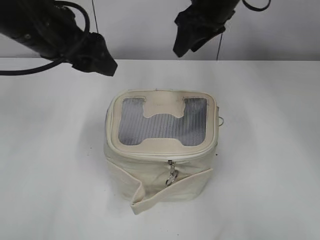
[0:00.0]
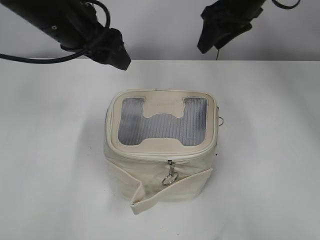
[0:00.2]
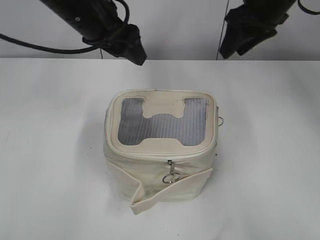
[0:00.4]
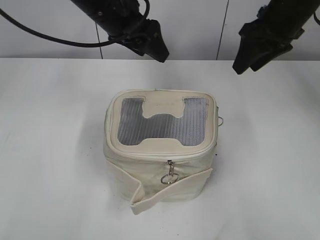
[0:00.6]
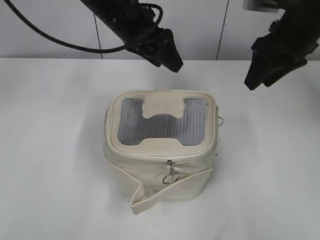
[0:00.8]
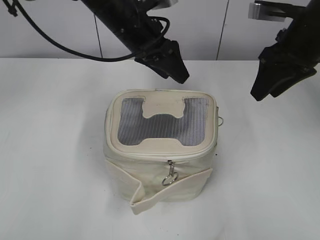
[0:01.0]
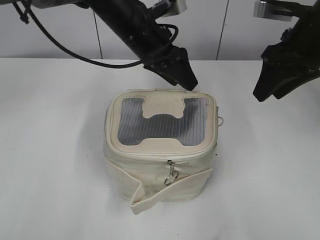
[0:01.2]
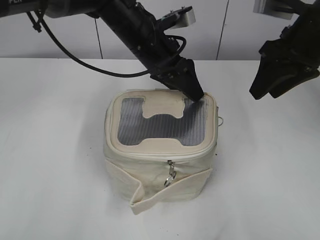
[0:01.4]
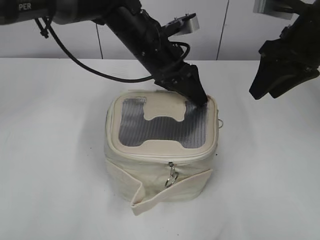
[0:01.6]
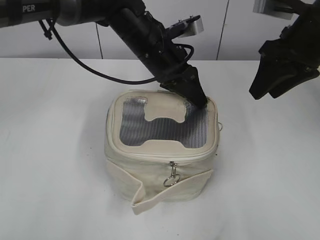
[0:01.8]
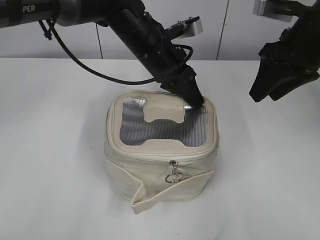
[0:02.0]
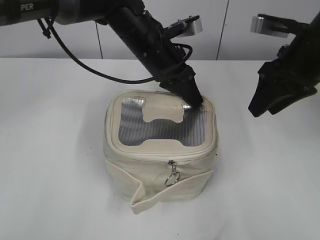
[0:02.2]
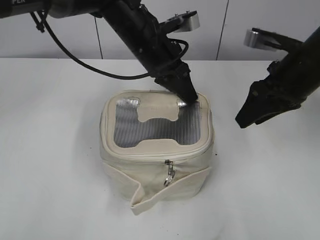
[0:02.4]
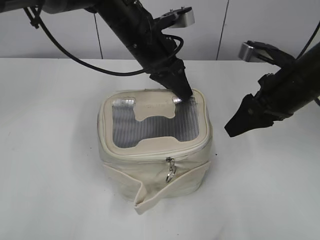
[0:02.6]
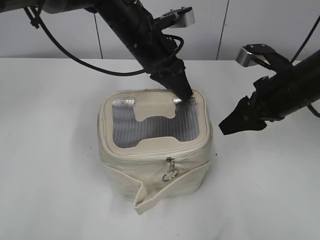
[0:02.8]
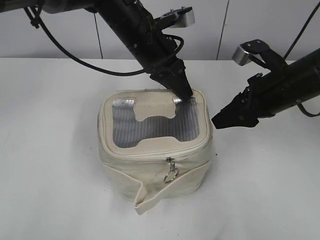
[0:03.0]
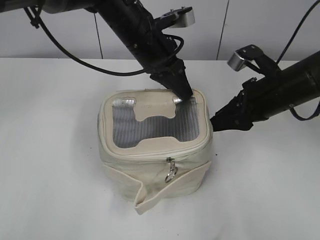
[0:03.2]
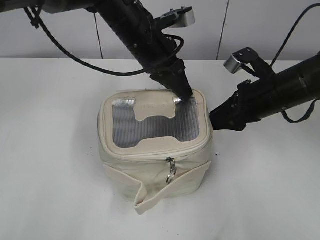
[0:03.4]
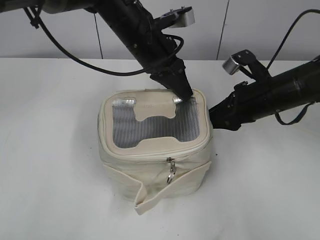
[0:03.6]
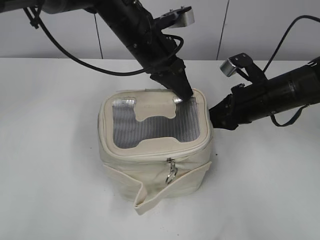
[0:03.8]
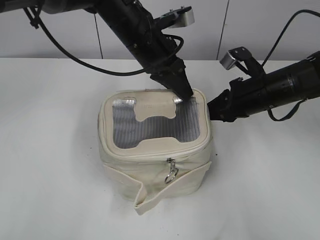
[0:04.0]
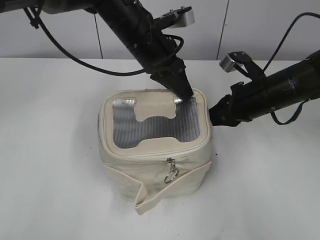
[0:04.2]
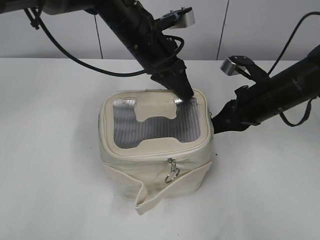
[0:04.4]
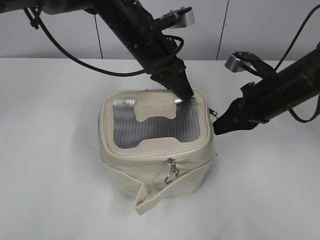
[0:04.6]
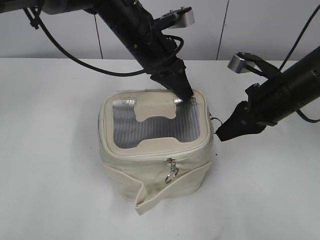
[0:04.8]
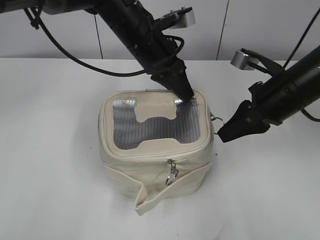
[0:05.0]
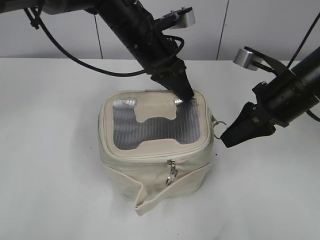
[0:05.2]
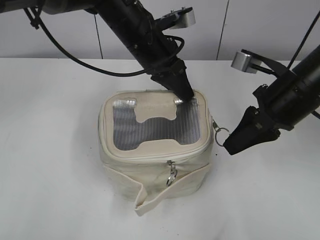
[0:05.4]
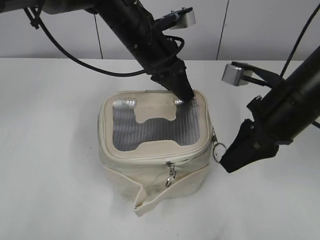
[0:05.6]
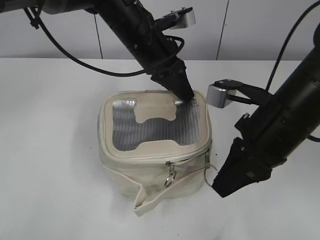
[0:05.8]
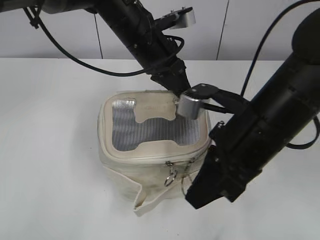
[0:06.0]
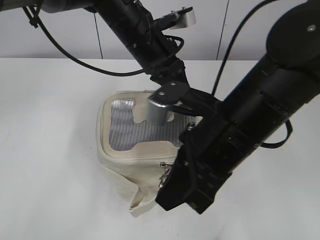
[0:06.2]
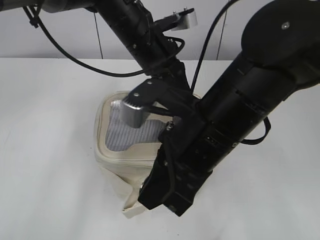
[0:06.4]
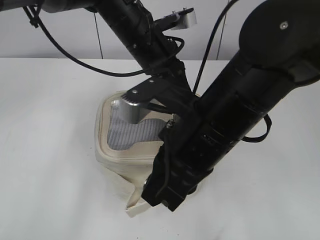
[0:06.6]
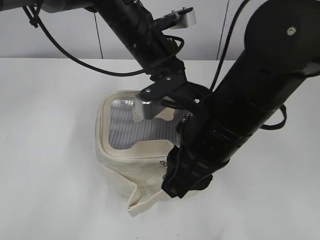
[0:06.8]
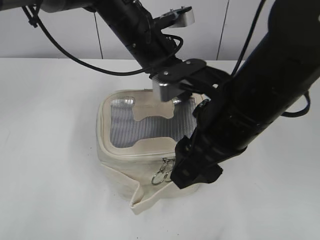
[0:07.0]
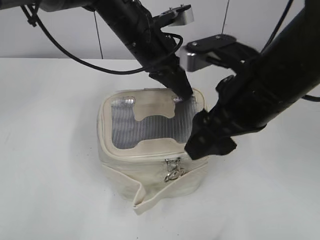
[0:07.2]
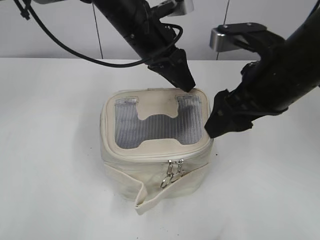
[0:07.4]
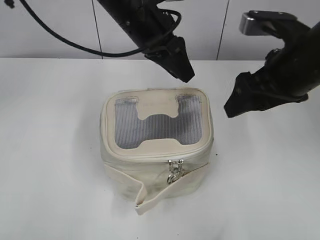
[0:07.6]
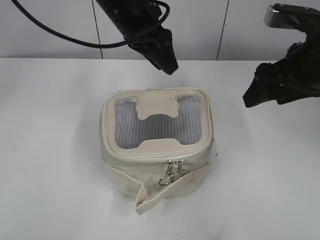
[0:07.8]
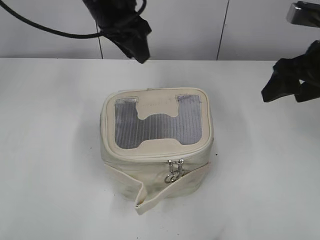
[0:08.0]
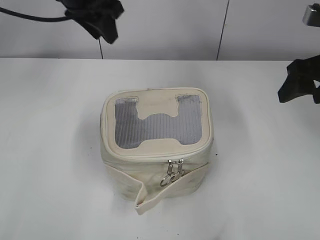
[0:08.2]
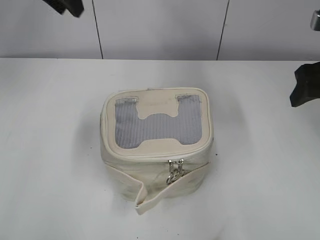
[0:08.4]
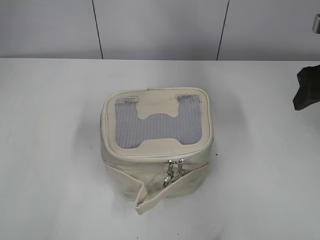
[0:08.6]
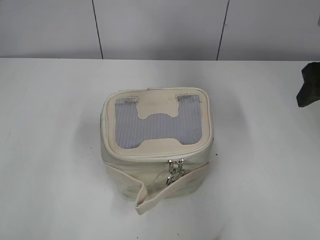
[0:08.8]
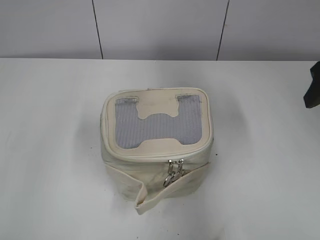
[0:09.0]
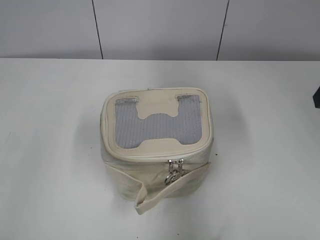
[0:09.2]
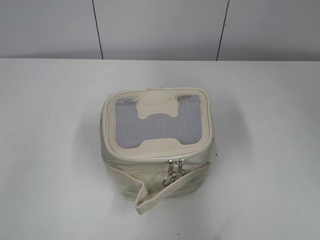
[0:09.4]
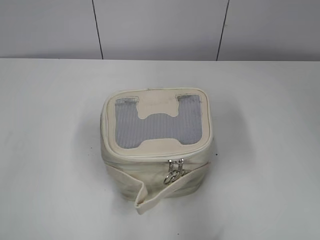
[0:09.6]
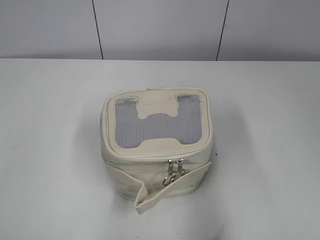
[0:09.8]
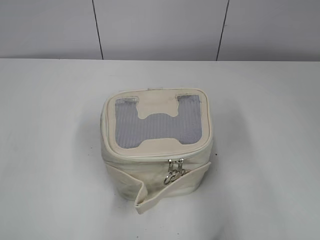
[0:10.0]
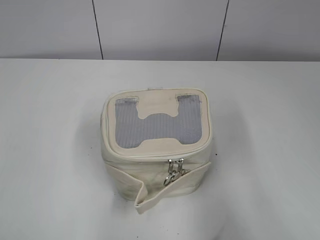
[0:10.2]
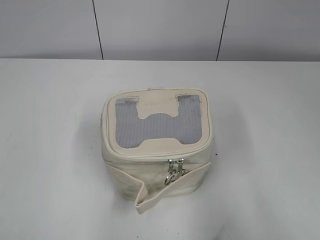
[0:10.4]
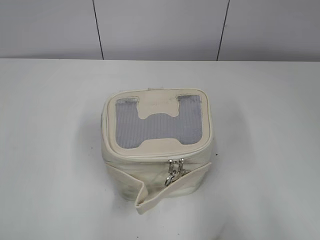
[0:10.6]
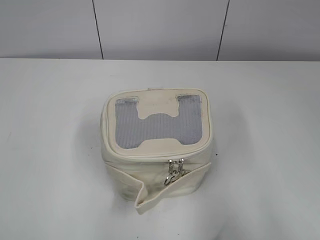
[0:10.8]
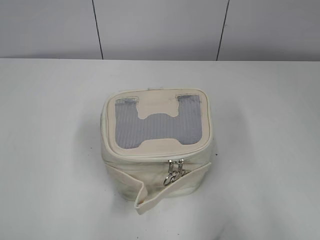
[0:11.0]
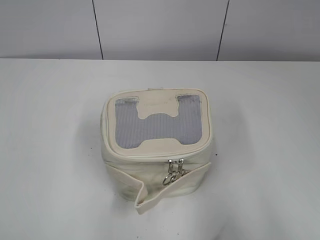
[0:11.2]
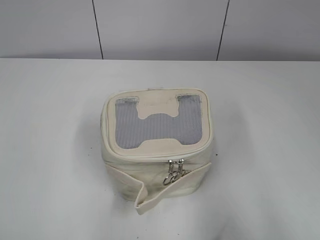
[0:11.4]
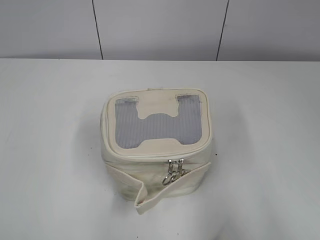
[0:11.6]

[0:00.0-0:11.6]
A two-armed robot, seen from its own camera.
Step, 0:00.0 to 0:06.8: Zip up the bag with your right hand.
Step, 0:07.2 to 0:07.4: Hold the bag with your left hand.
0:00.0 to 0:01.4: The right gripper travels to the right and backward by some 15 cm, while the left gripper shifts approximately 20 cm to the right, forward and downward.
0:01.4 to 0:02.8: The right gripper travels downward by roughly 10 cm, while the left gripper closes.
0:02.8 to 0:04.4: The right gripper moves approximately 5 cm, and closes its fingers.
0:04.4 to 0:05.8: The right gripper goes roughly 10 cm backward and upward.
0:05.8 to 0:07.2: The right gripper opens its fingers.
0:07.2 to 0:08.8: The left gripper is displaced to the left and upward by some 30 cm, while the right gripper goes roughly 15 cm to the right and forward.
0:08.8 to 0:10.2: The two grippers go roughly 25 cm backward.

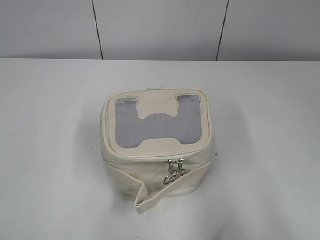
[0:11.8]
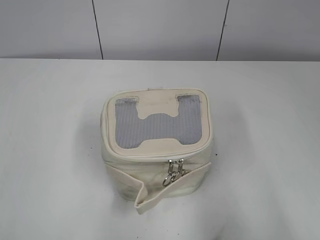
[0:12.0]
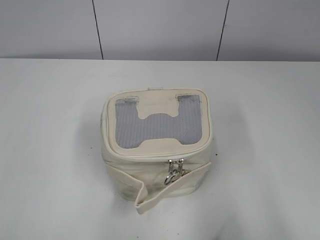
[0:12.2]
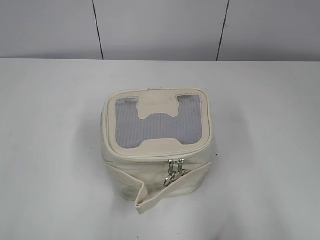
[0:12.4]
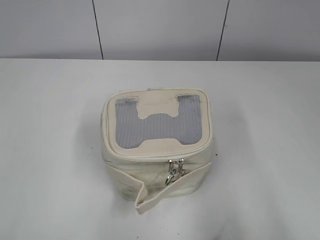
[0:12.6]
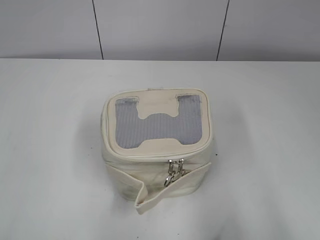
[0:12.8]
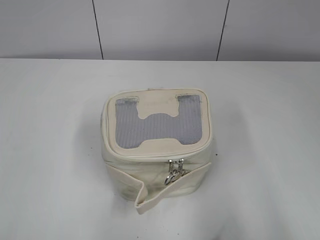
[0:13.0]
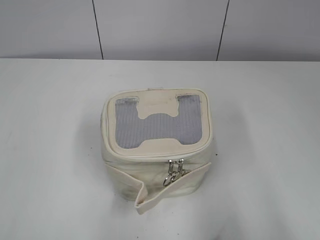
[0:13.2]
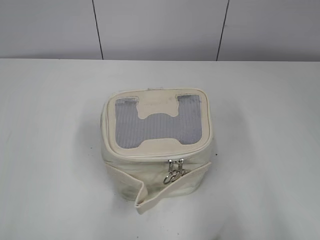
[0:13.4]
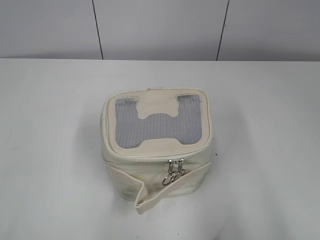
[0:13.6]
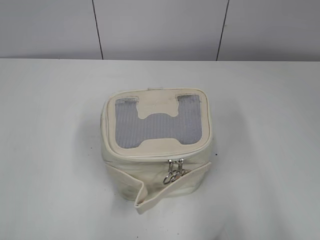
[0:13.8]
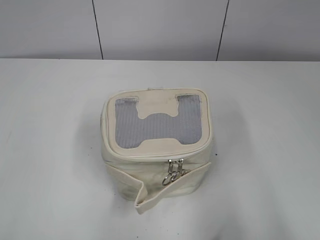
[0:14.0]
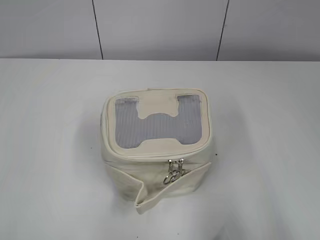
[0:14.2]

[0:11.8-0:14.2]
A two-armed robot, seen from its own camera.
0:13.0 to 0:14.2: Both grippers stay put.
